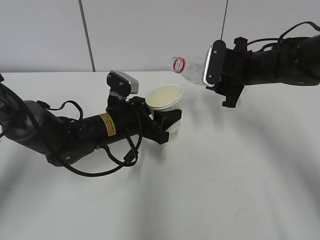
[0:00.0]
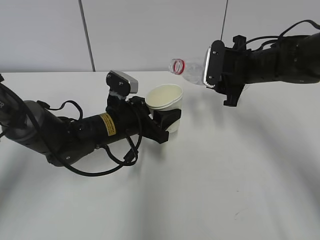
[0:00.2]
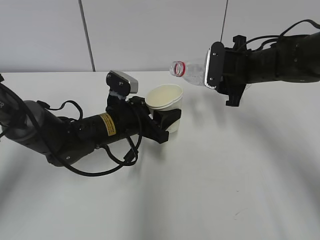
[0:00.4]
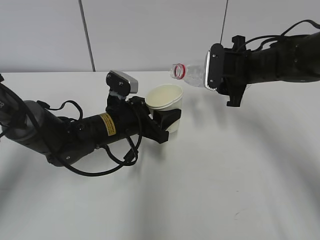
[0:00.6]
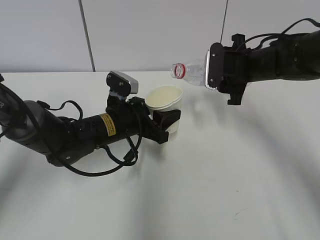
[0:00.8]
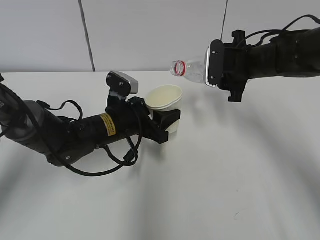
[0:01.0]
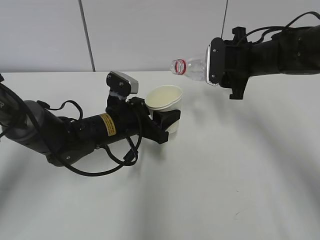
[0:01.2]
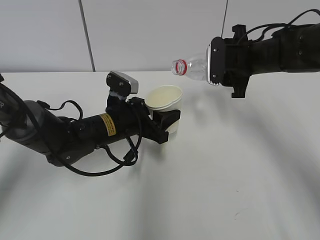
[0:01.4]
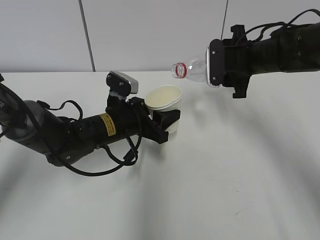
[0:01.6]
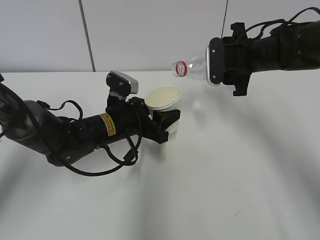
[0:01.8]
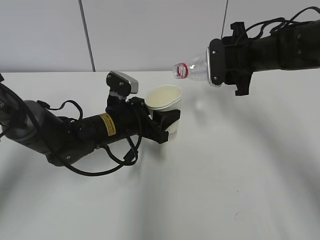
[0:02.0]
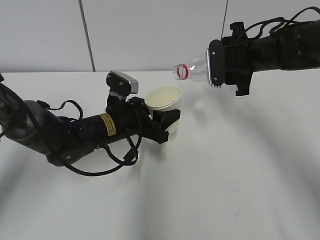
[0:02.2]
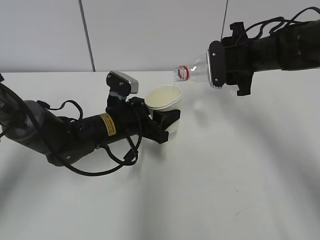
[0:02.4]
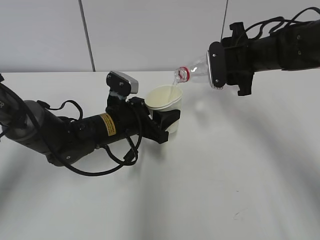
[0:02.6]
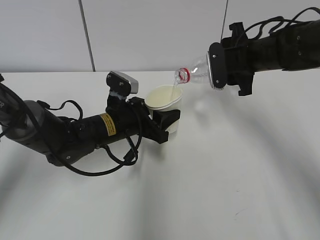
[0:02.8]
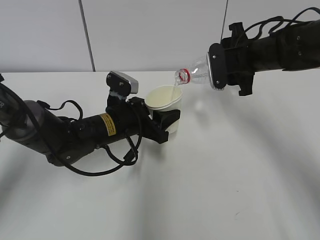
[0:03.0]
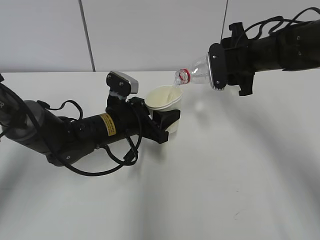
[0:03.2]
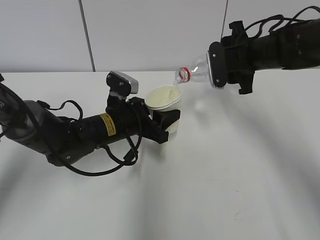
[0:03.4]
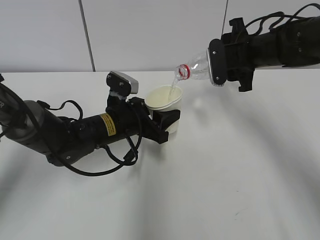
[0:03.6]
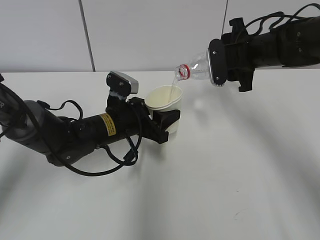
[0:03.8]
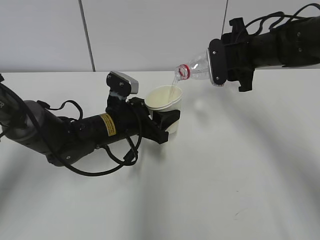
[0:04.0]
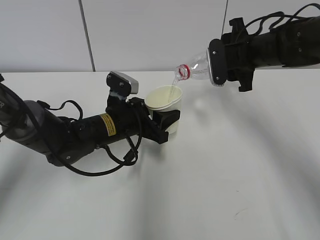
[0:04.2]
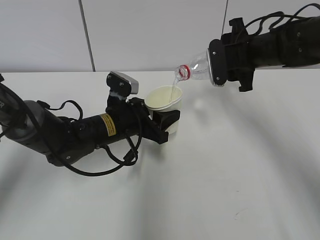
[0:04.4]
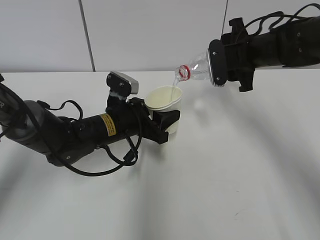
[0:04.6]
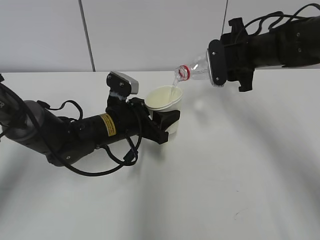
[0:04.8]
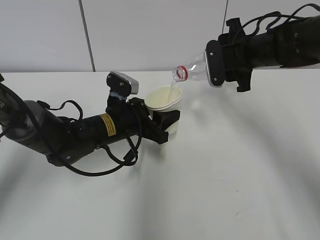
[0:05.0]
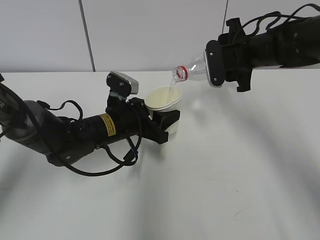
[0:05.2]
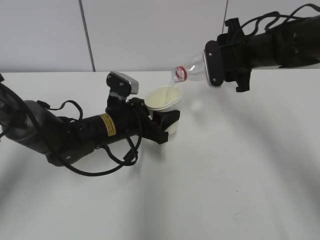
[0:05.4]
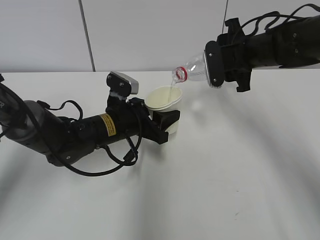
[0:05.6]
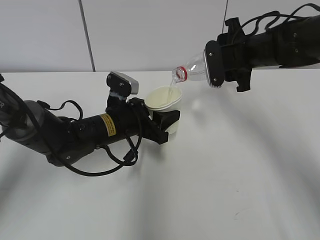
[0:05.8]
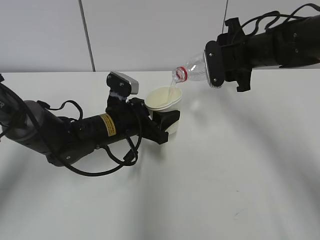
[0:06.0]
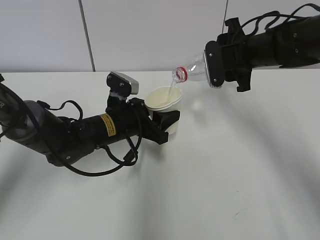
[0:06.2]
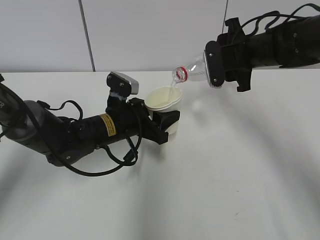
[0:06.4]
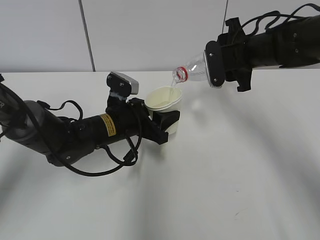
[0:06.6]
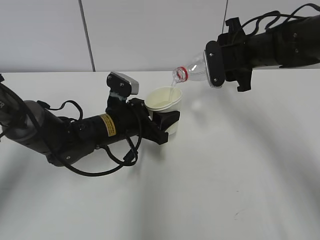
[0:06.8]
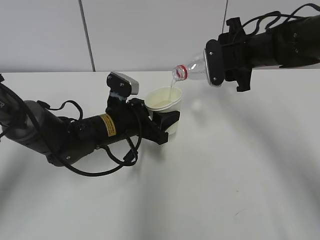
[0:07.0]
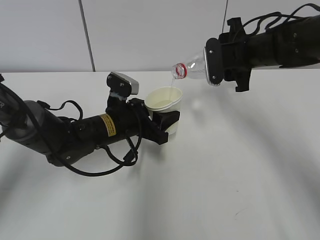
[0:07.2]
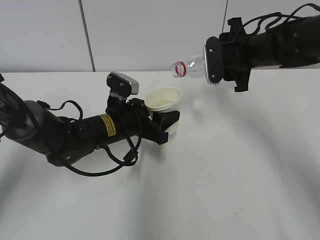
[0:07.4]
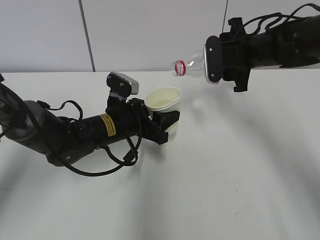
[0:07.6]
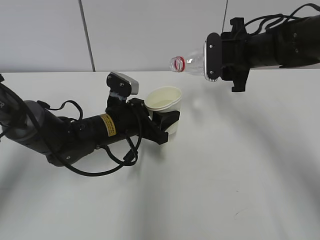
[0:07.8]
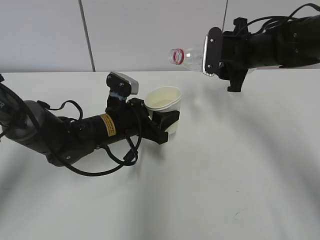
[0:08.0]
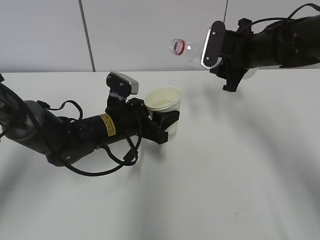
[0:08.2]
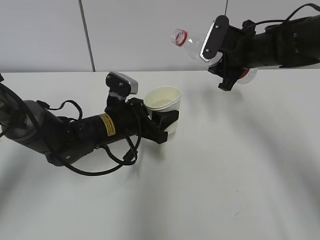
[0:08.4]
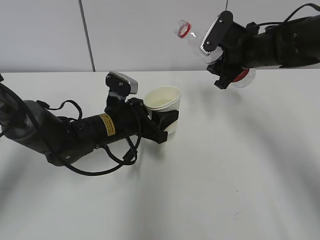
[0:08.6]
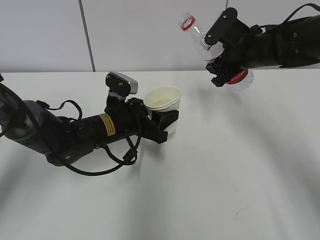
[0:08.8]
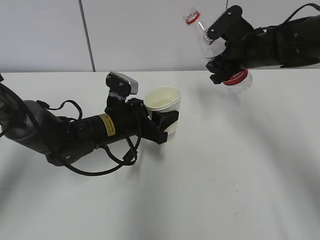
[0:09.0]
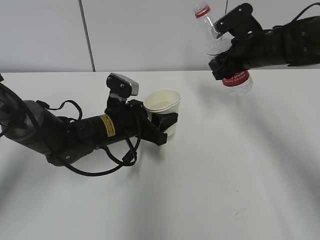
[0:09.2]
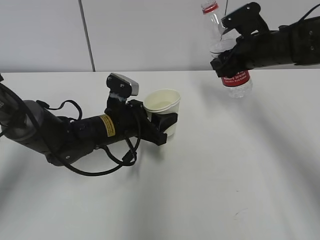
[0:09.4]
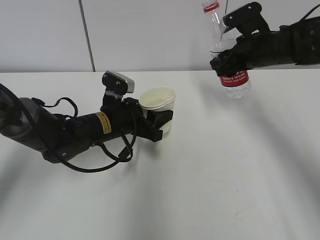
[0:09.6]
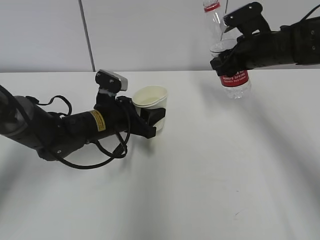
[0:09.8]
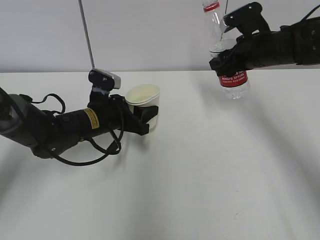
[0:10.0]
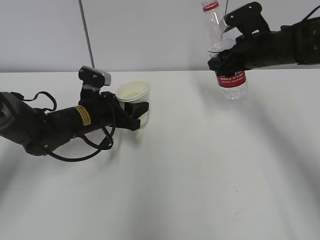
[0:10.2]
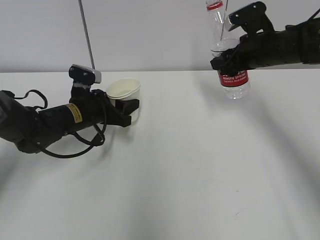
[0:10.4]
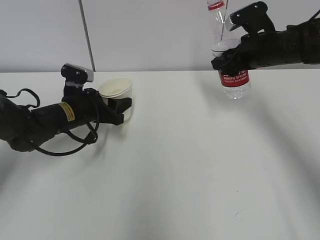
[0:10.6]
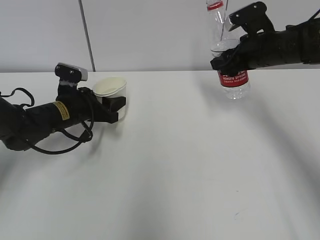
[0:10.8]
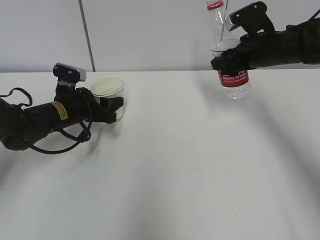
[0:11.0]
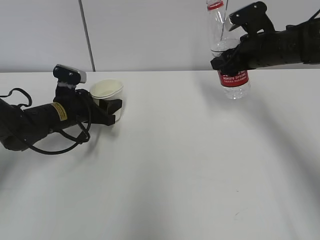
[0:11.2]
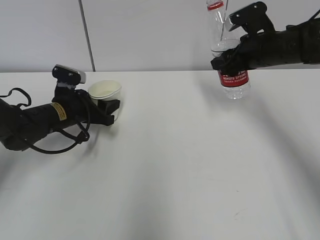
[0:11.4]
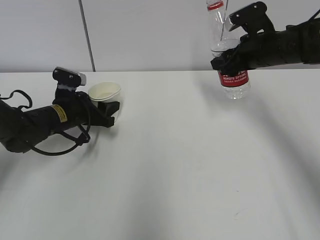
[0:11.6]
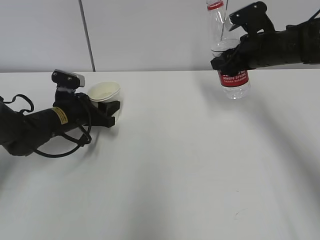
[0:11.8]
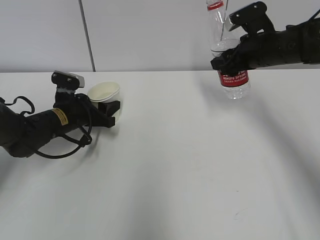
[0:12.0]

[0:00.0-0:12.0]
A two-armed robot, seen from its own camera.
Step, 0:00.0 to 0:03.4: Pour water with the right hand.
Step, 0:03.6 to 0:05.4: Collect water with the right hand.
Step, 0:05.6 to 0:08.0: Place the paper cup with the left hand.
0:00.0 to 0:01.6: The grippers make only small movements.
0:01.6 to 0:03.0: The grippers move only a little.
0:03.0 to 0:06.0: Both grippers stay about where they are.
0:06.0 to 0:07.6: The grippers make only small movements.
0:09.0 to 0:10.4: The left gripper heads to the left, covering roughly 5 cm.
0:10.4 to 0:12.0: The grippers make only small movements.

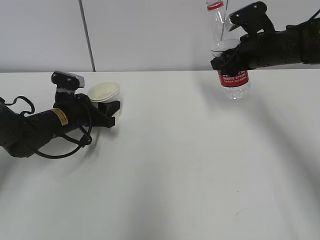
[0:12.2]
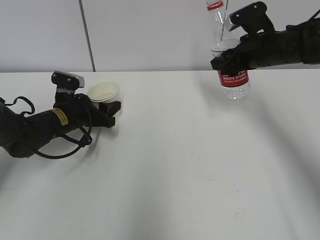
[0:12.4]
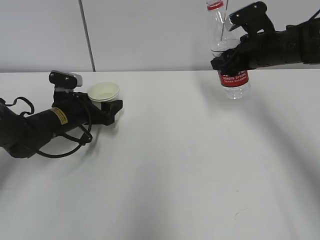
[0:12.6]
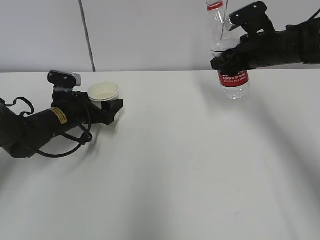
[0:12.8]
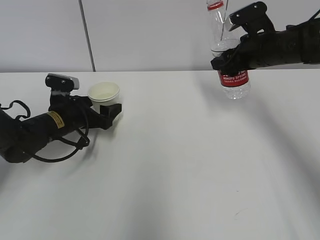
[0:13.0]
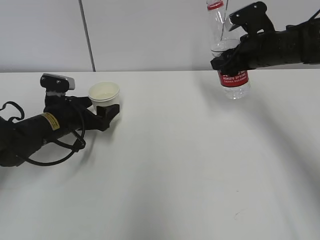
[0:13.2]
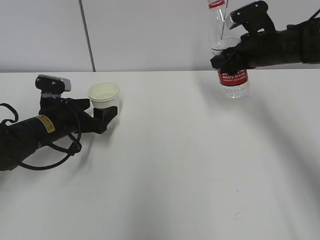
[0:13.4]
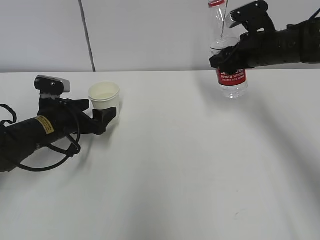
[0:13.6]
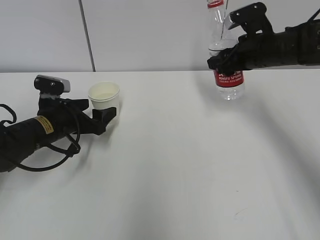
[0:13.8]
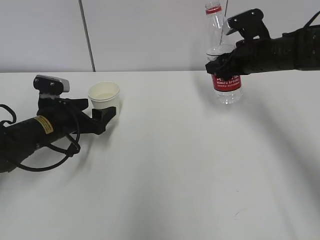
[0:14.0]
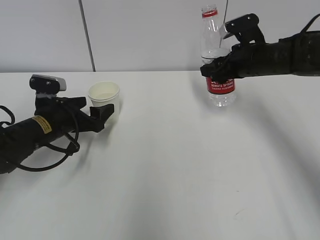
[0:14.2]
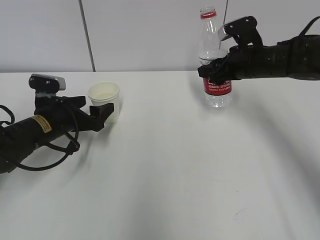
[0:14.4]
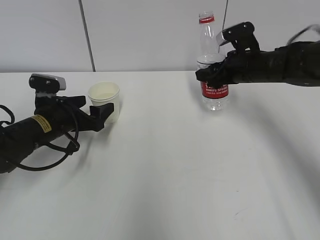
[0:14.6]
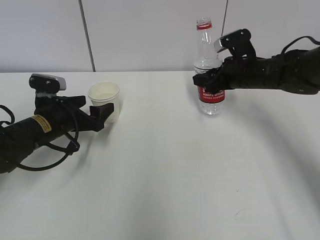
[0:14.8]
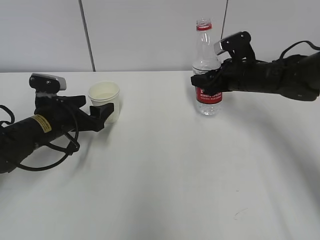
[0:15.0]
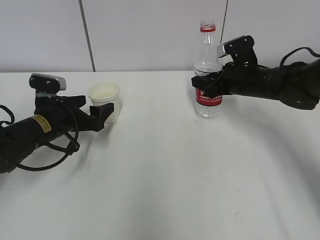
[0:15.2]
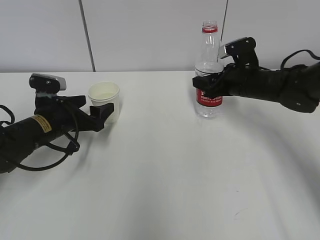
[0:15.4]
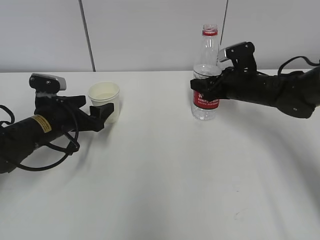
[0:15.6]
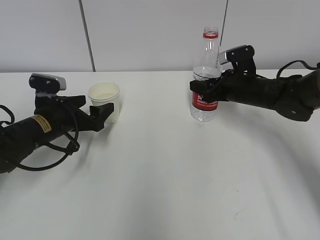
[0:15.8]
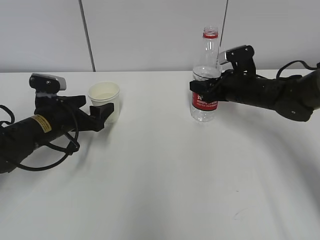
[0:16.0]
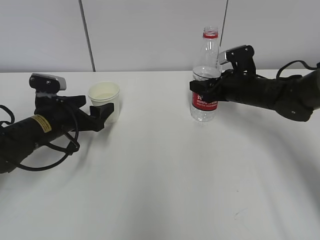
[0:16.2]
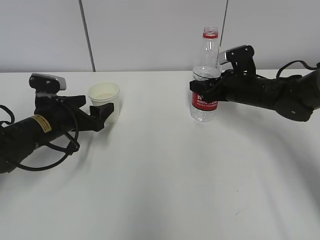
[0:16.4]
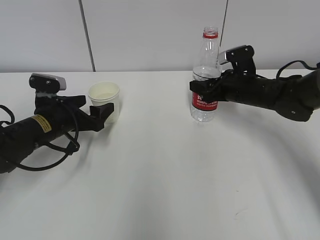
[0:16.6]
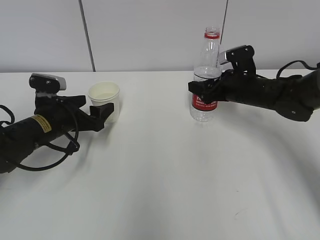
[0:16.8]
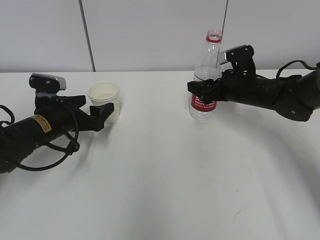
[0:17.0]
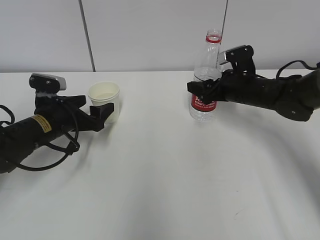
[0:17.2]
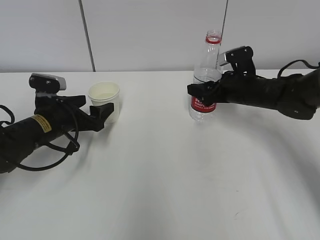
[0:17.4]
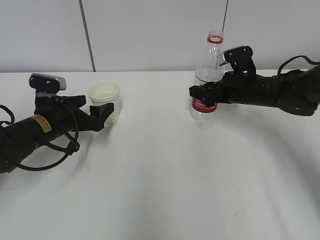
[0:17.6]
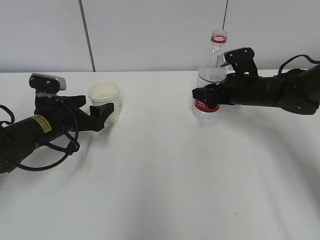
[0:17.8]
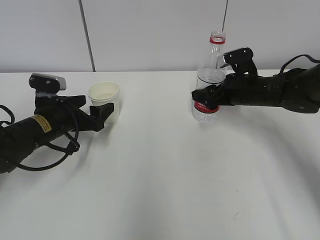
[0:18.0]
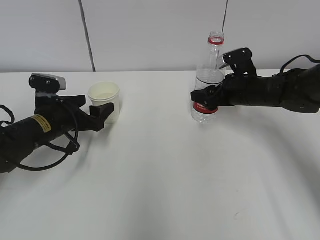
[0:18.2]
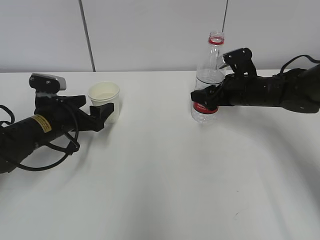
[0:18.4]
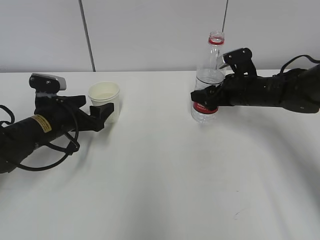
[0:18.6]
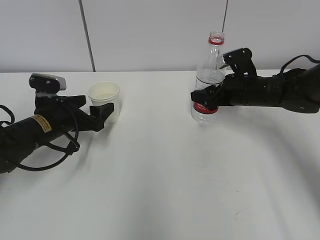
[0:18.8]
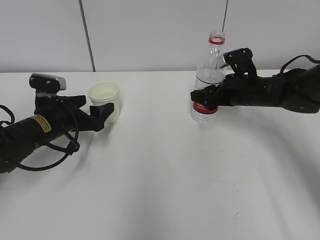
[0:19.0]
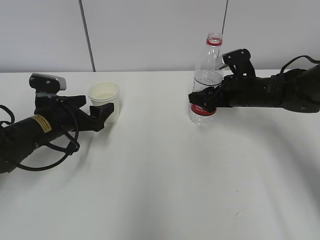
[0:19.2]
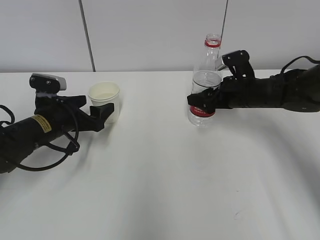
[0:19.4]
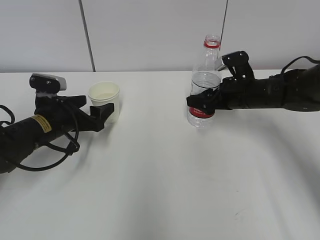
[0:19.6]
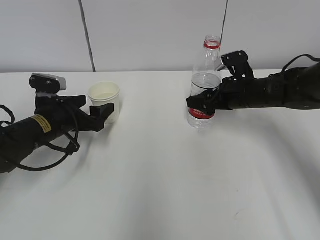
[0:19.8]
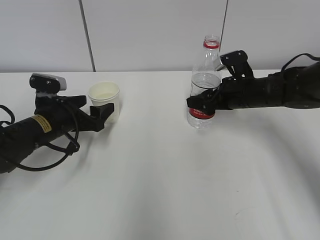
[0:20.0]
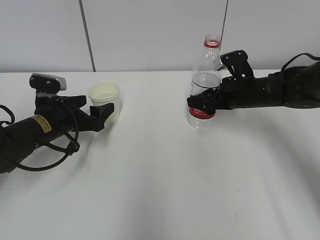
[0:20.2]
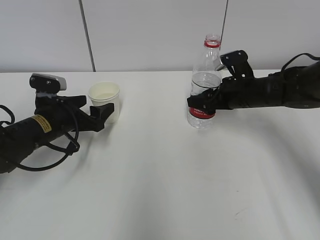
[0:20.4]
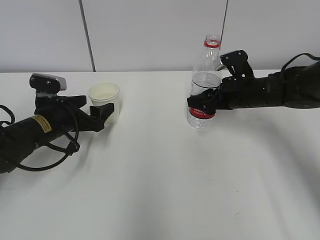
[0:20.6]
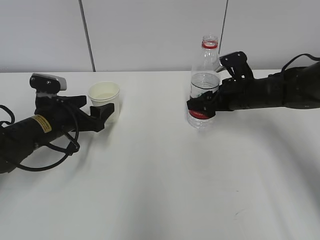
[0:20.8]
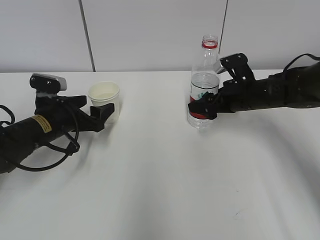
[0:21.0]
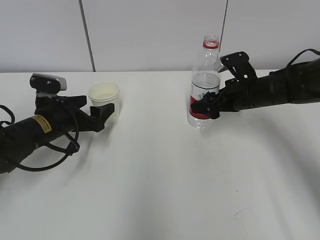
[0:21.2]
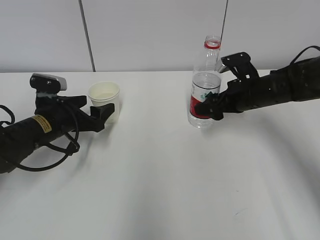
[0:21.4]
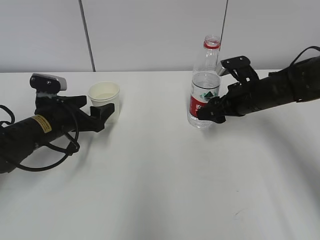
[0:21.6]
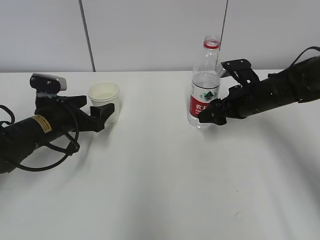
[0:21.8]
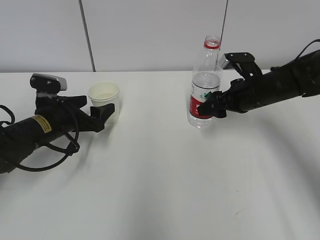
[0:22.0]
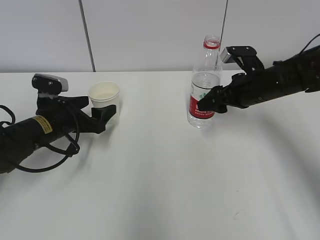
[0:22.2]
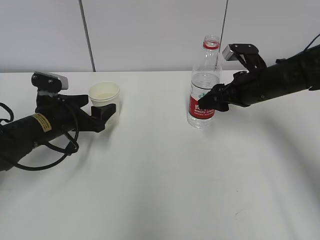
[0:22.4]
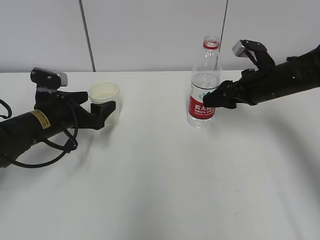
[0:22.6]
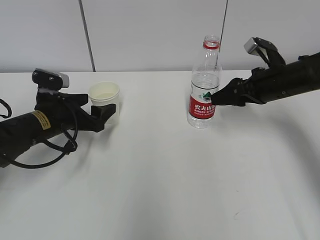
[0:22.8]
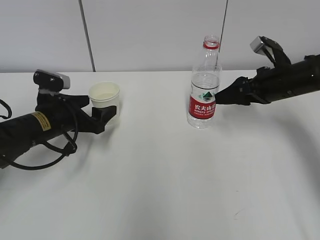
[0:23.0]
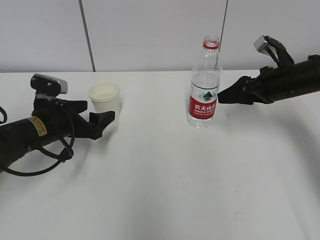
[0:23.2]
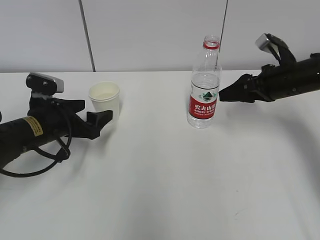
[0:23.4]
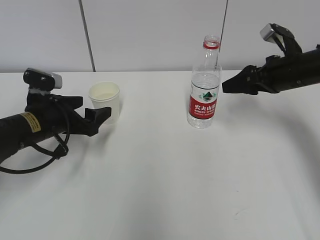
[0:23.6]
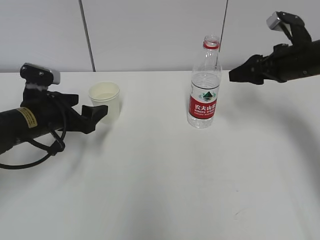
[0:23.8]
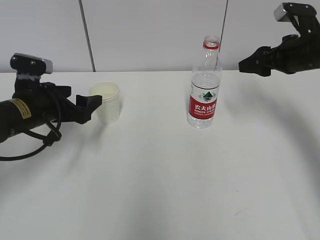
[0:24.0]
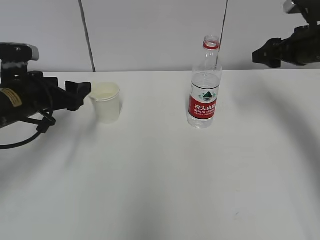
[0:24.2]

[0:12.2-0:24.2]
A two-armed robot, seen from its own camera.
Step, 0:12.2 to 0:15.2: Place the water bottle with the right hand.
0:12.2 to 0:13.8: The left gripper opens its fingers.
0:13.8 to 0:15.2: The right gripper goes approximately 5 cm downward.
0:15.2 to 0:16.6: The grippers stay close to where they were, moving slightly.
0:16.6 to 0:18.2: The right gripper opens its fingers.
0:18.2 to 0:21.2: The grippers move only a little.
0:21.2 to 0:22.6: The right gripper closes up.
0:22.6 to 0:24.2: The right gripper moves to the right and upward, some 10 cm, while the left gripper moves upward, some 5 cm.
